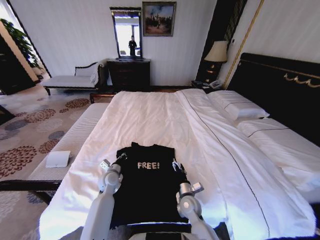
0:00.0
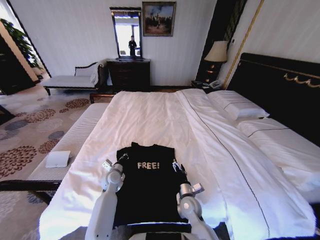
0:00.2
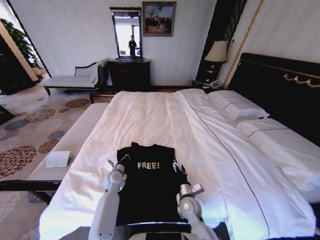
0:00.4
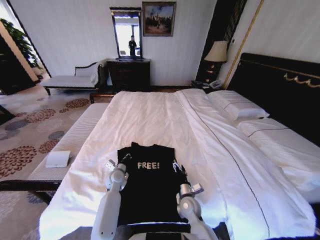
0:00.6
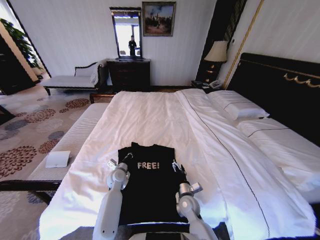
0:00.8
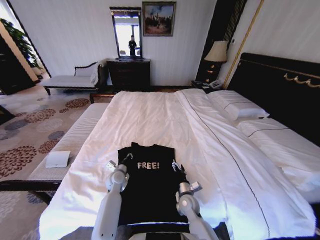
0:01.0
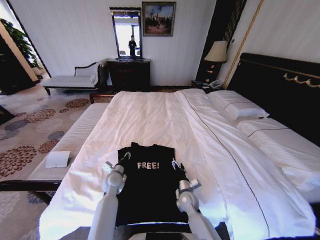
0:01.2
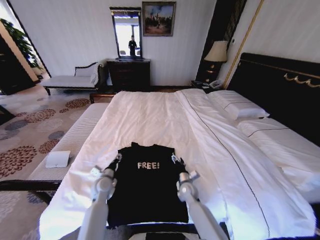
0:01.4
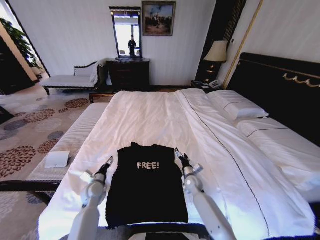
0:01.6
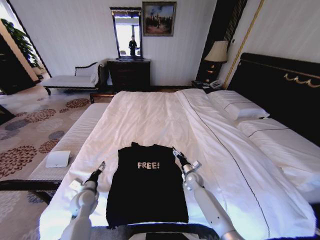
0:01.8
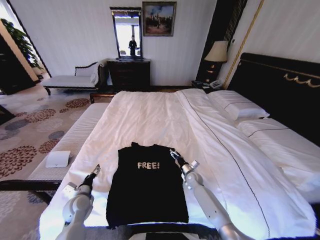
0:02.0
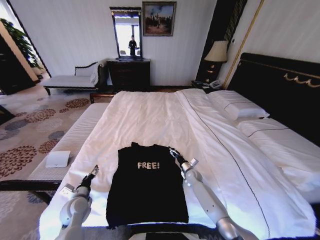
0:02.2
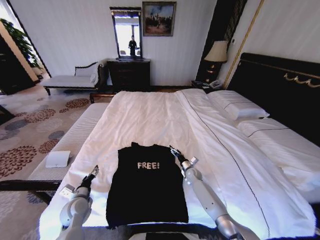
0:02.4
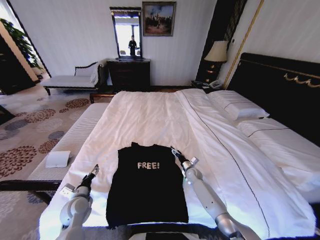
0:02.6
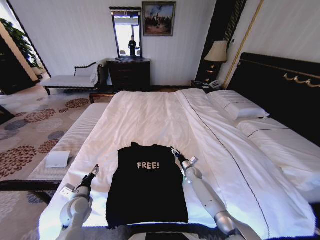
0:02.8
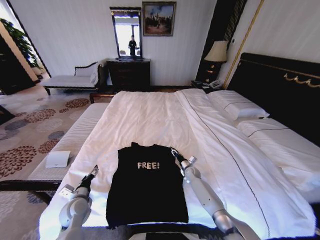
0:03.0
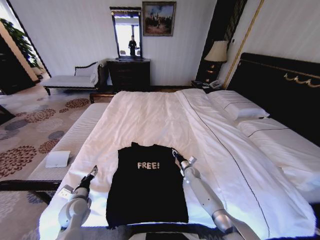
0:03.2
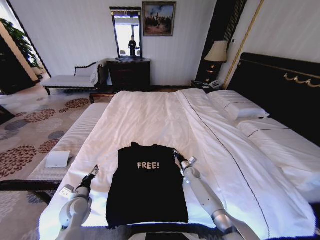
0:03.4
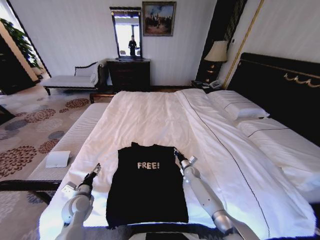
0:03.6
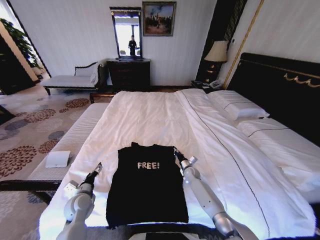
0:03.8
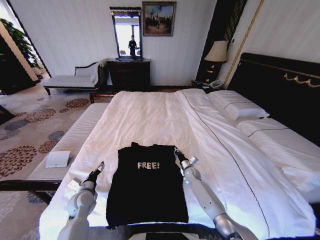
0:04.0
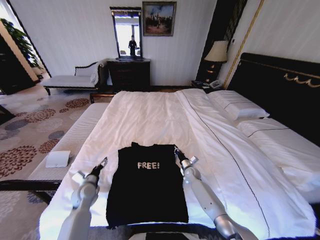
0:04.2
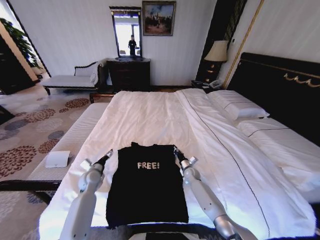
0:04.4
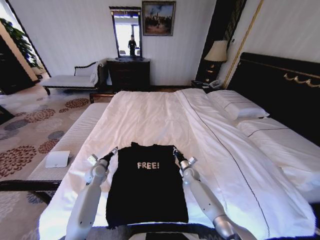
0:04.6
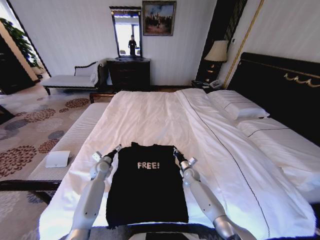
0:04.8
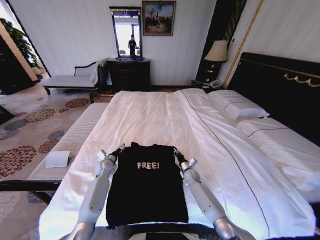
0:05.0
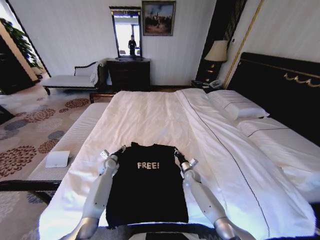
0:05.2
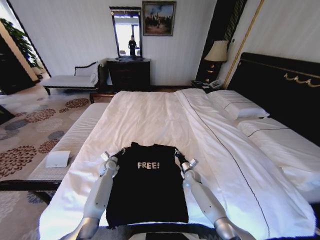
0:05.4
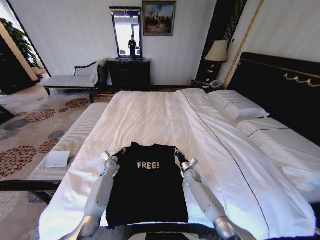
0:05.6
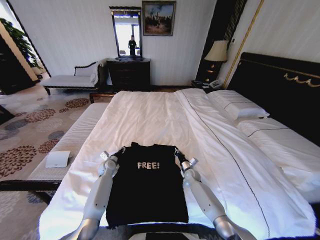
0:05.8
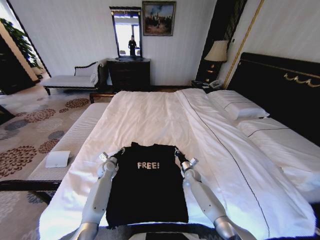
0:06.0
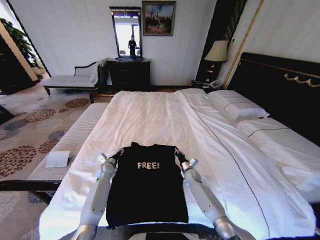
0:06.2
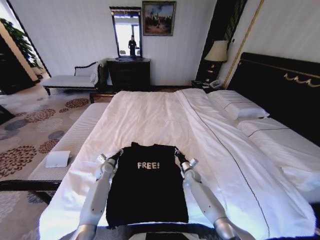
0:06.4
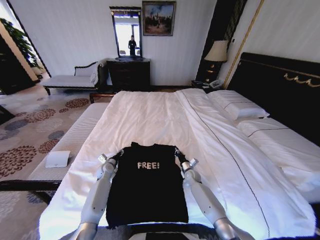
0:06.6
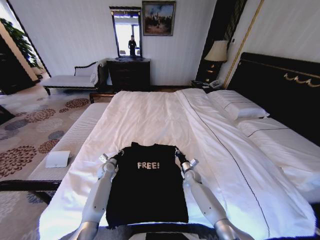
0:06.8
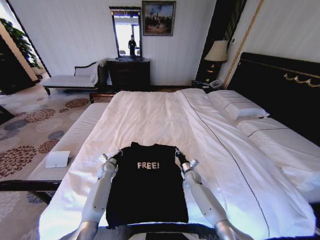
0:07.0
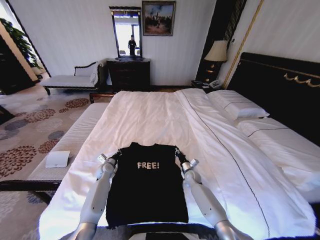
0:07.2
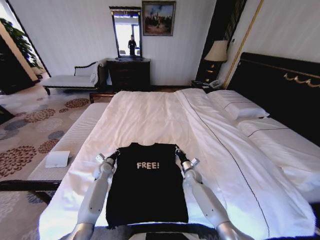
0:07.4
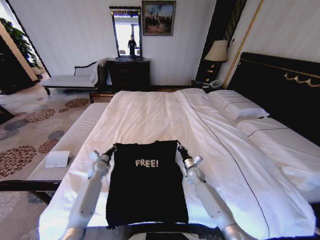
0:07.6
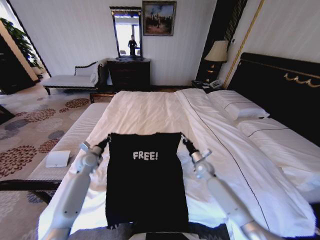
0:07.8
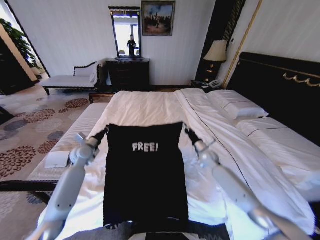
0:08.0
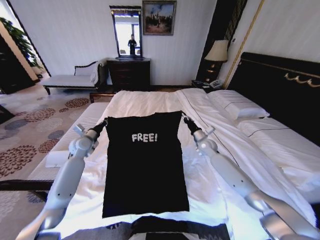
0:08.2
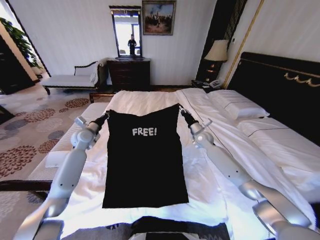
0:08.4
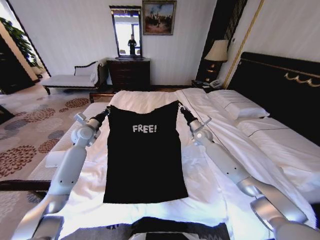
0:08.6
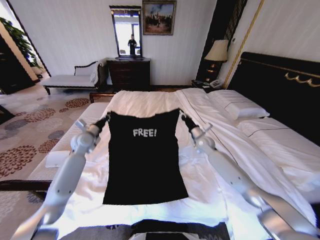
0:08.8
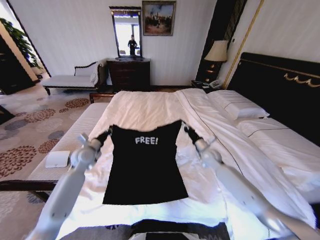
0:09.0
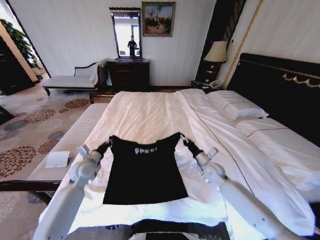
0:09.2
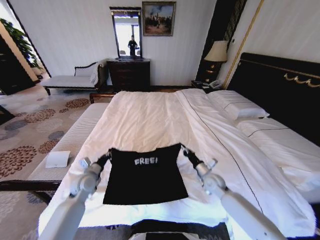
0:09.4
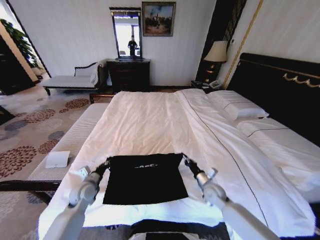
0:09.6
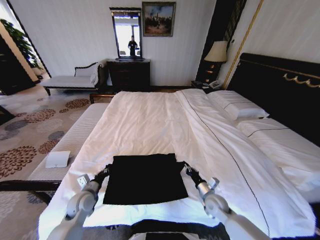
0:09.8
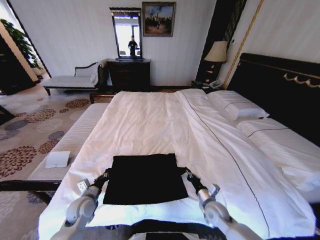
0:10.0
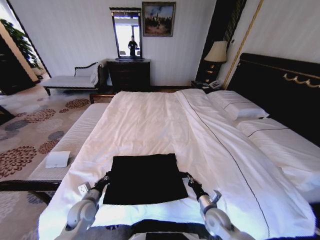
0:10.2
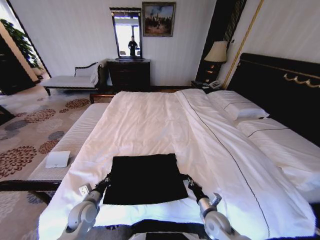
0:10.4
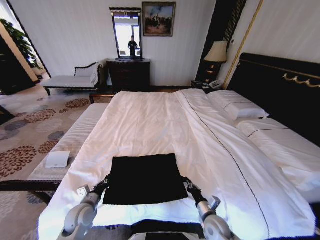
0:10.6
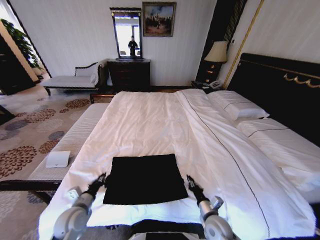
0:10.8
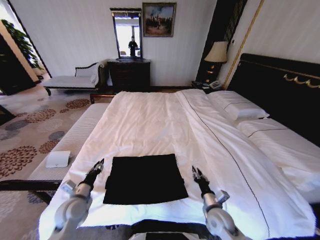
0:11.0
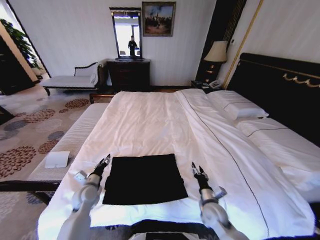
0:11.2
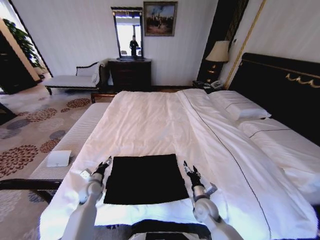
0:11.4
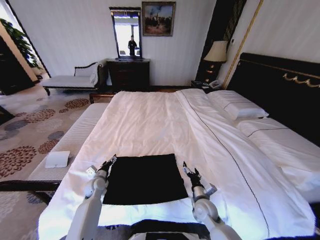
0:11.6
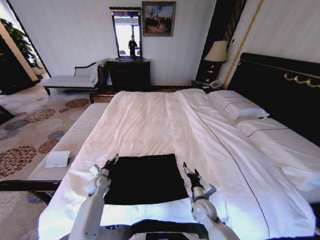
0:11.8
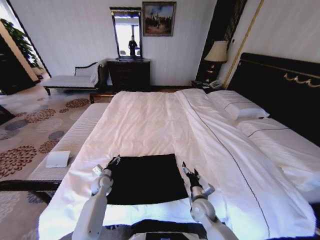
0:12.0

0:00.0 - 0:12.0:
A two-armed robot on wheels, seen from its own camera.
Task of the whole recording: Fold the clothes on the bed.
0:00.0 - 0:01.6: The left gripper travels to the left and backward by roughly 10 cm, and opens up. The right gripper goes some 15 cm forward and to the right.
0:01.6 - 0:03.0: The right gripper is displaced forward by about 10 cm, and closes; the left gripper moves backward, some 5 cm.
0:03.0 - 0:04.4: The left gripper heads forward, covering some 15 cm. The right gripper closes.
0:04.4 - 0:06.0: The left gripper is displaced forward by some 10 cm, and closes.
0:06.0 - 0:07.6: The left gripper moves some 5 cm, and closes, while the right gripper moves upward, some 5 cm.
0:07.6 - 0:09.0: The two grippers go some 15 cm upward.
0:09.0 - 0:10.4: Both grippers move backward and downward, about 25 cm.
0:10.4 - 0:12.0: The right gripper moves forward, some 5 cm, and opens; the left gripper shifts roughly 15 cm forward and downward, and opens its fingers.

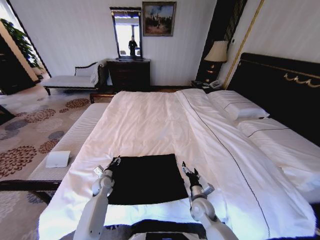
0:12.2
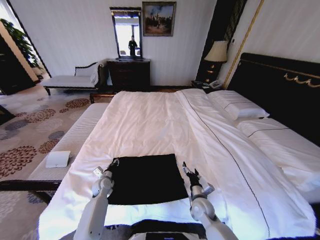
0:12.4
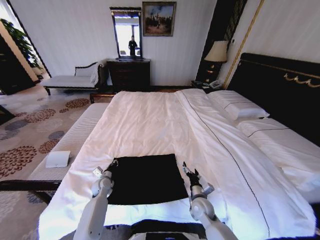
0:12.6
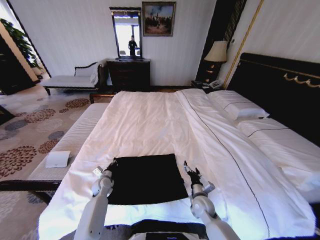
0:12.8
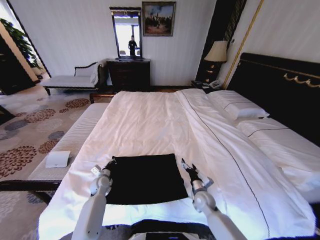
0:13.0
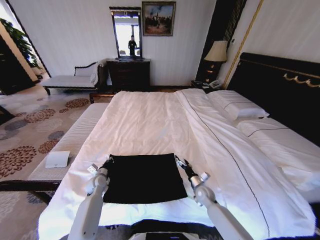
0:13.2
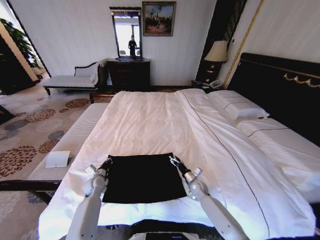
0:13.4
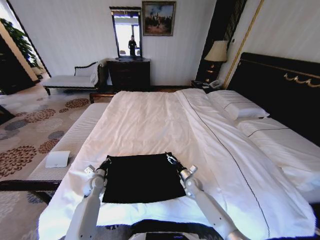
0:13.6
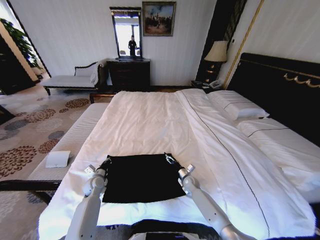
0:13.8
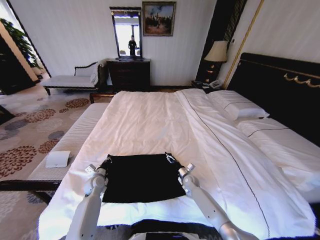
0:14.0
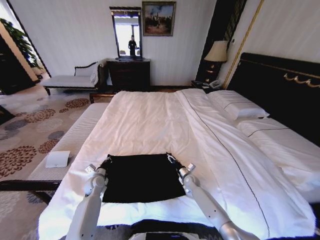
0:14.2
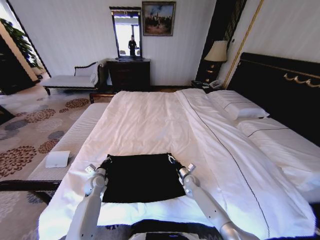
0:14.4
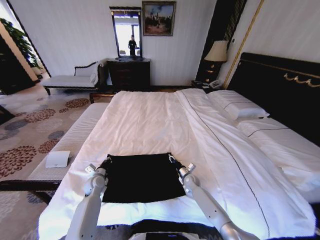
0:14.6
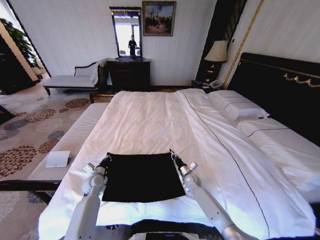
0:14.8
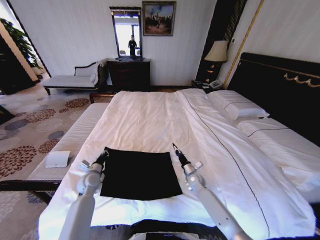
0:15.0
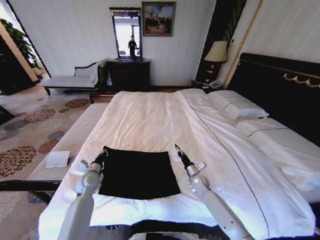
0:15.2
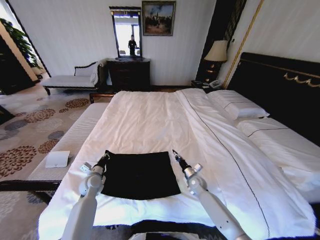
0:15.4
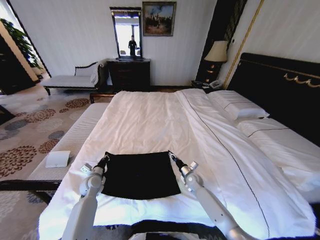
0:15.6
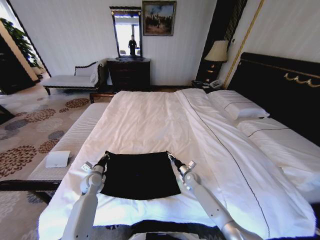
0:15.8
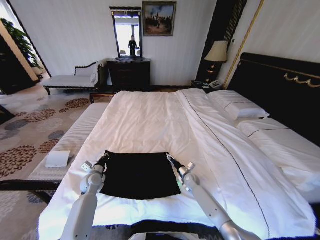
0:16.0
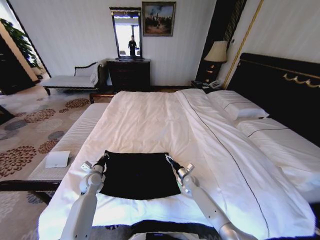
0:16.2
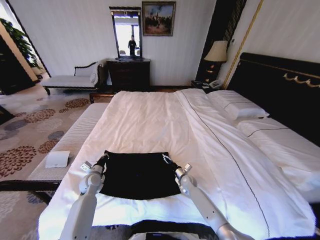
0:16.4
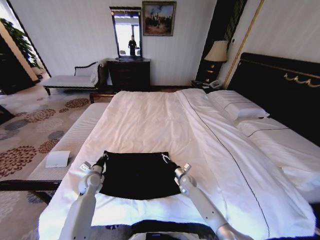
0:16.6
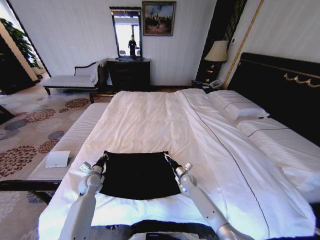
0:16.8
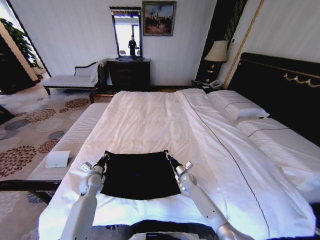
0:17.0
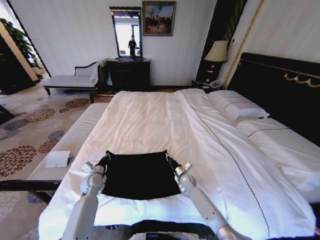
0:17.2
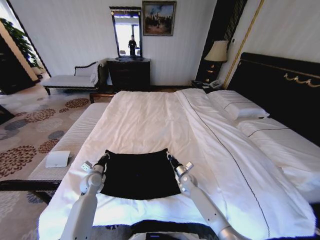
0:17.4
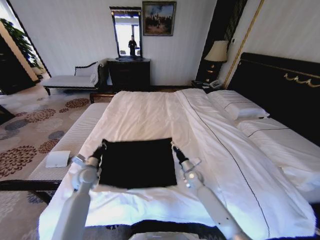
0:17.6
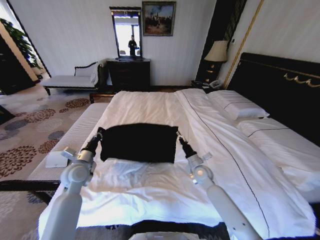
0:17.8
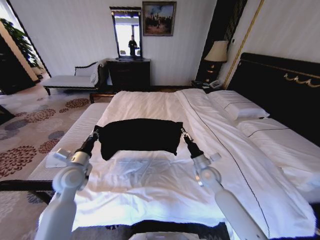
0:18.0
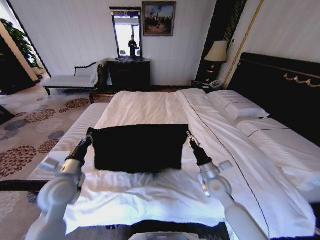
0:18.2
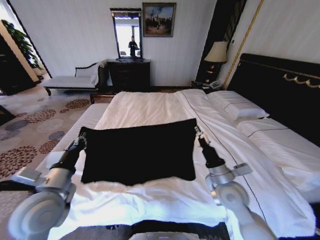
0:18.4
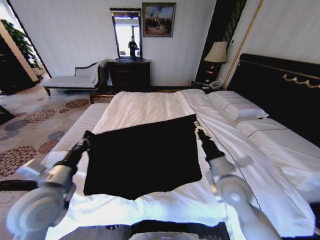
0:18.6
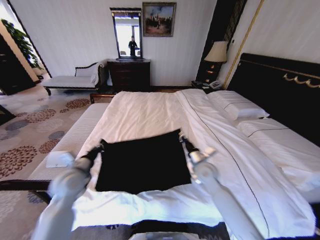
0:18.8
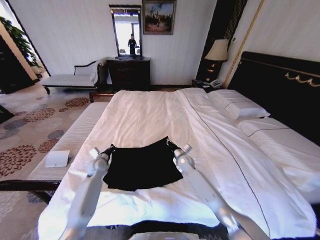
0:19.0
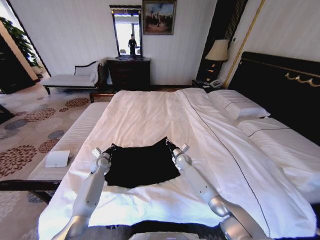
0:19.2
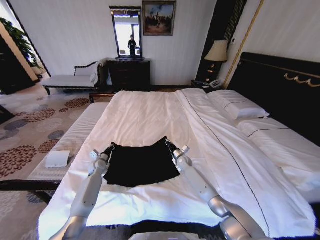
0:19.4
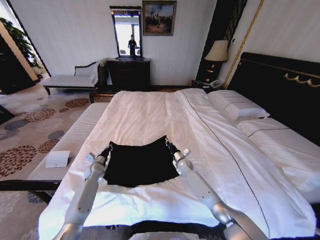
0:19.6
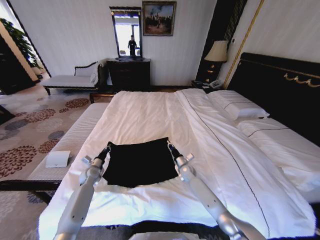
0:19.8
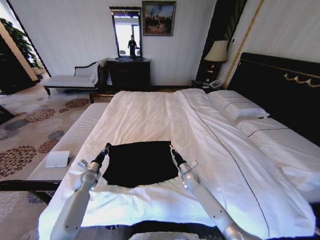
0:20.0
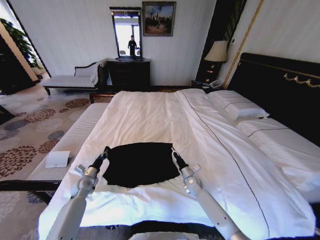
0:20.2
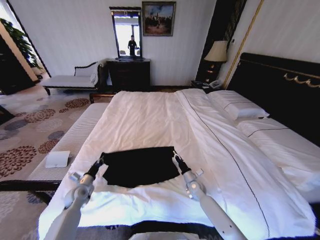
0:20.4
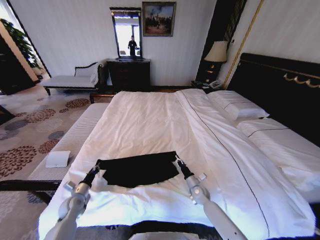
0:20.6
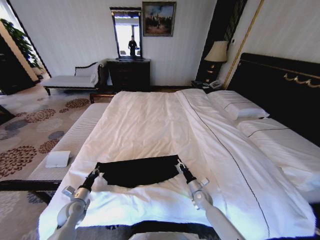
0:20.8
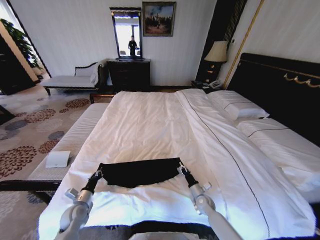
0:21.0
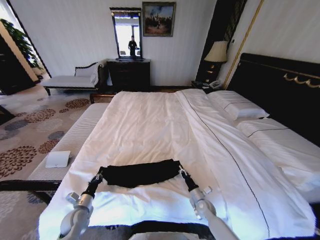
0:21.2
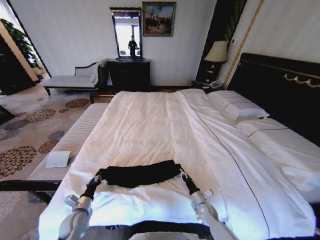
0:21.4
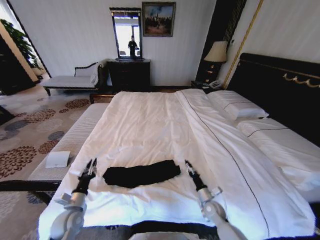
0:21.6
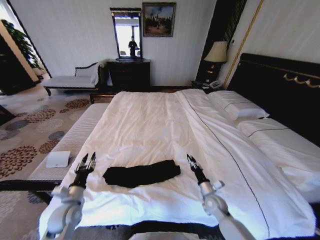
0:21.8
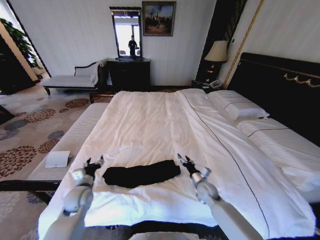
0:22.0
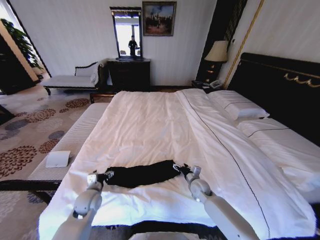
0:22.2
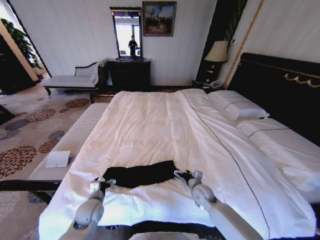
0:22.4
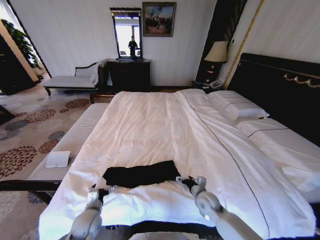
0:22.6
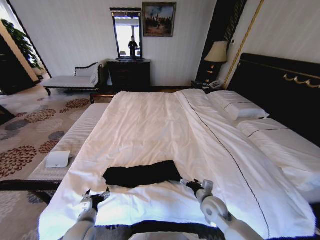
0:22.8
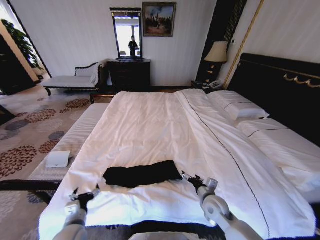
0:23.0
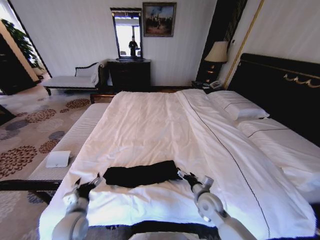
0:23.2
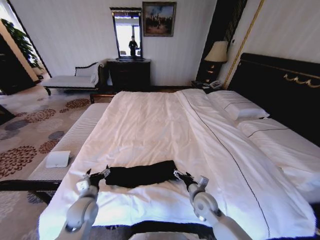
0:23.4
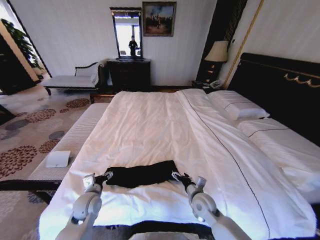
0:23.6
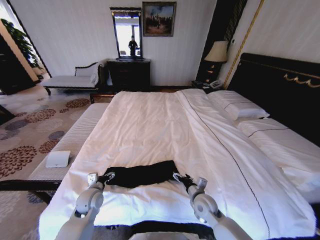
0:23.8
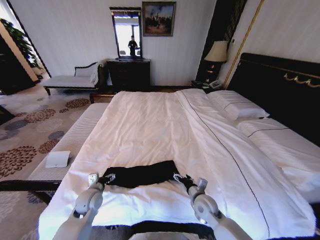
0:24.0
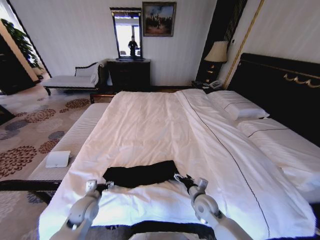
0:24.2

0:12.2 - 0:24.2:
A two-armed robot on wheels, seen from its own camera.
Task of the whole recording: Fold the clothes on the bed.
0:12.2 - 0:13.8: The left gripper closes its fingers. The right gripper is displaced forward and downward by about 15 cm.
0:13.8 - 0:15.2: Both grippers travel together upward, approximately 5 cm. The right gripper closes up.
0:15.2 - 0:16.6: The right gripper travels to the left by some 5 cm, and opens its fingers.
0:16.6 - 0:18.2: The grippers both shift upward and backward by approximately 20 cm. The right gripper closes.
0:18.2 - 0:19.8: Both grippers travel together downward and forward, some 25 cm.
0:19.8 - 0:21.2: The two grippers go approximately 20 cm backward.
0:21.2 - 0:22.6: The left gripper goes approximately 10 cm to the right and upward, and opens up. The right gripper moves upward, about 10 cm, and opens its fingers.
0:22.6 - 0:24.2: The left gripper reaches approximately 5 cm forward, then returns.
